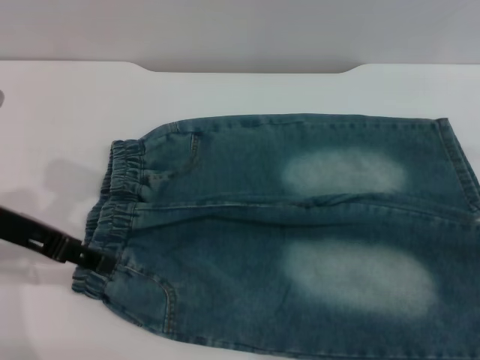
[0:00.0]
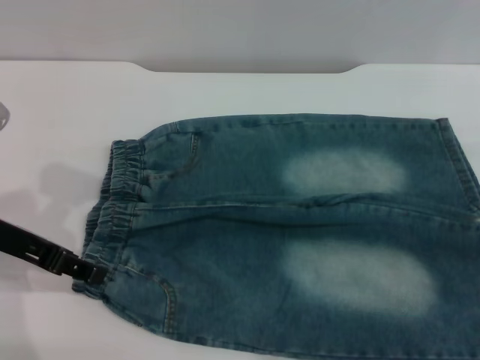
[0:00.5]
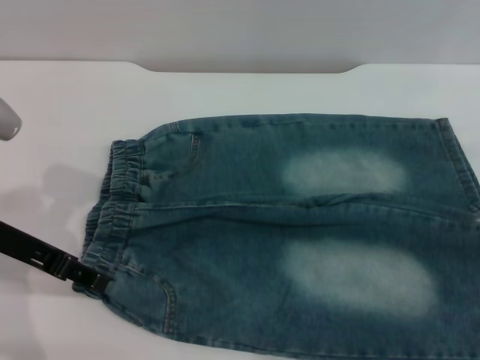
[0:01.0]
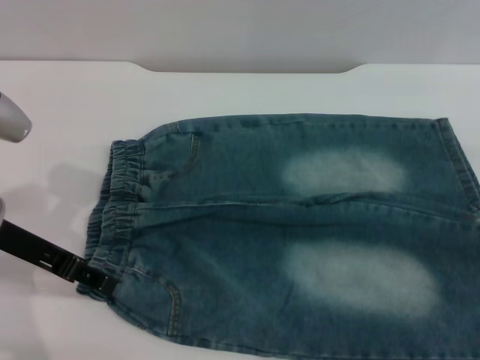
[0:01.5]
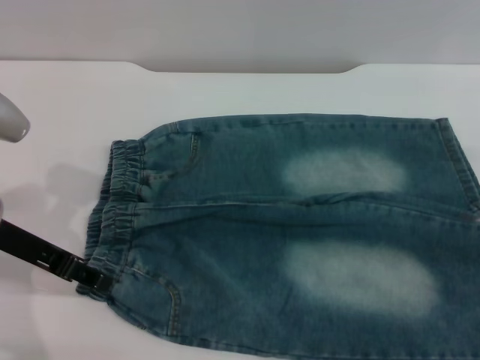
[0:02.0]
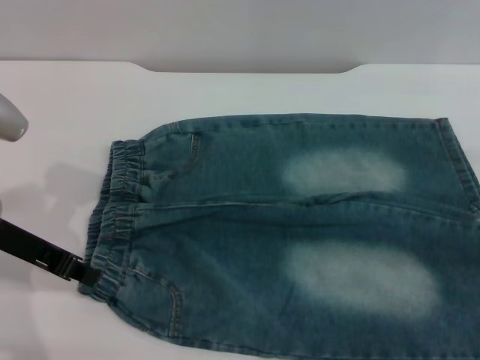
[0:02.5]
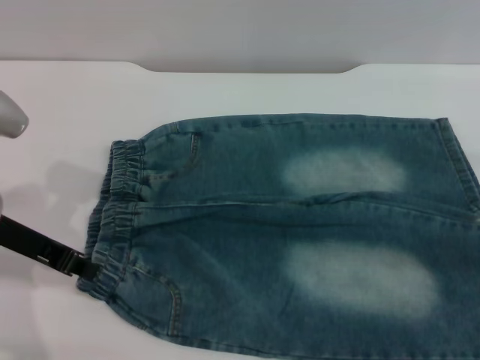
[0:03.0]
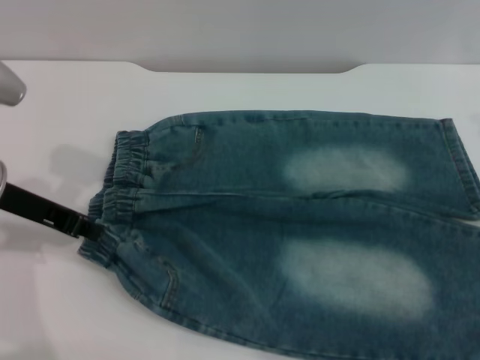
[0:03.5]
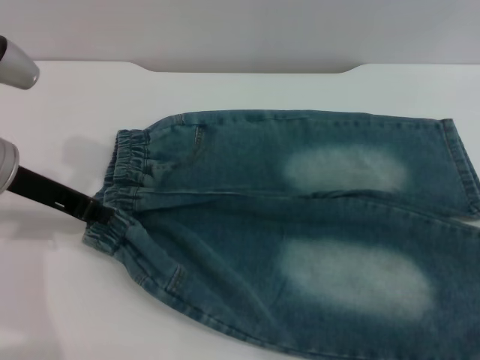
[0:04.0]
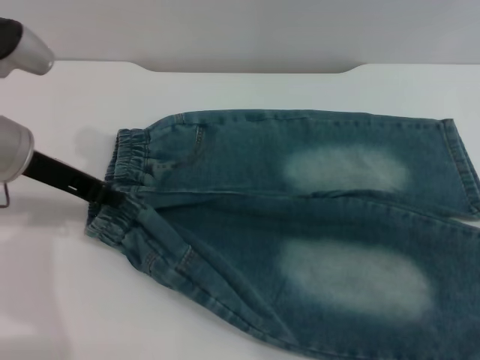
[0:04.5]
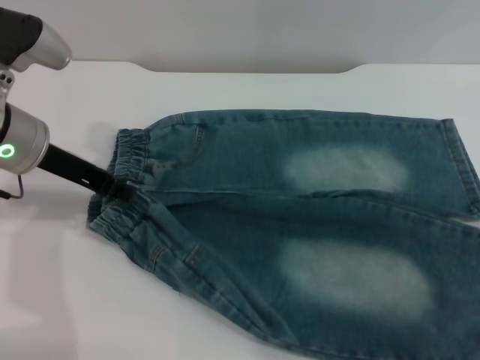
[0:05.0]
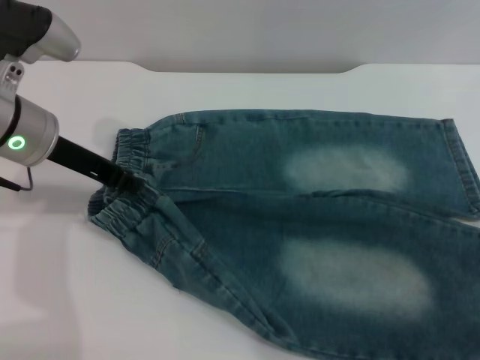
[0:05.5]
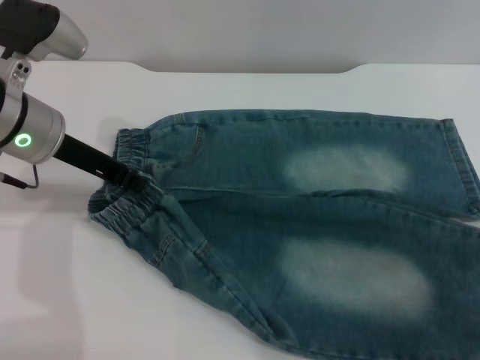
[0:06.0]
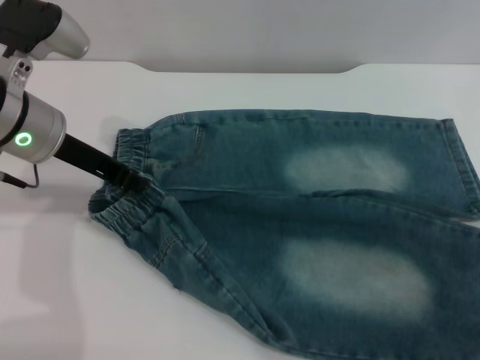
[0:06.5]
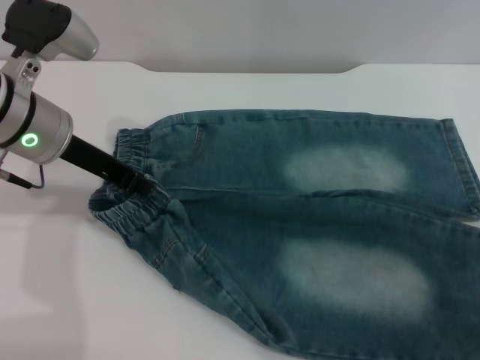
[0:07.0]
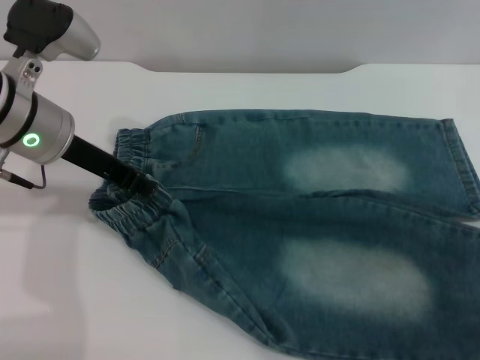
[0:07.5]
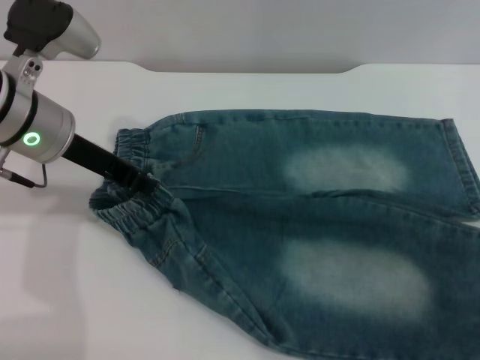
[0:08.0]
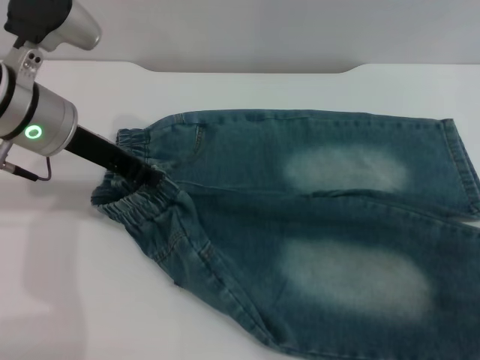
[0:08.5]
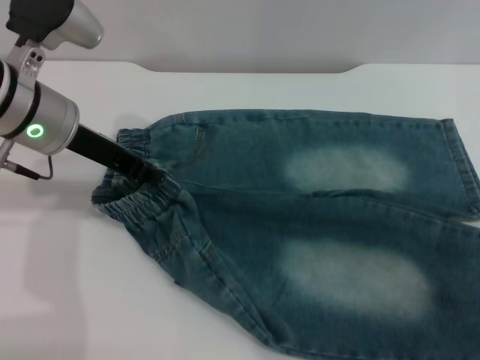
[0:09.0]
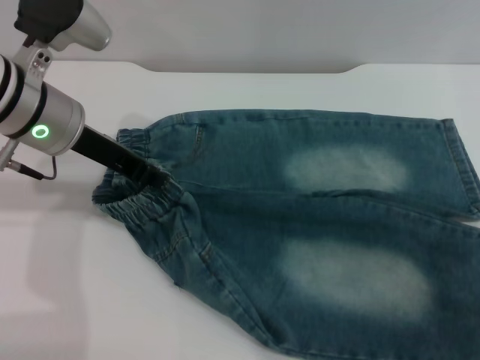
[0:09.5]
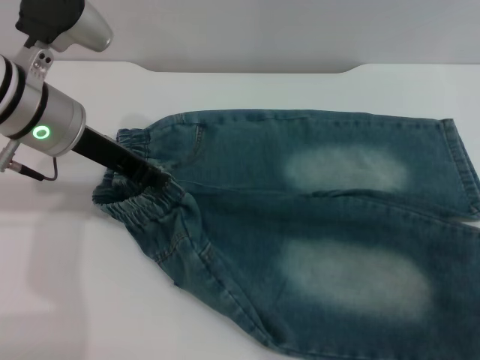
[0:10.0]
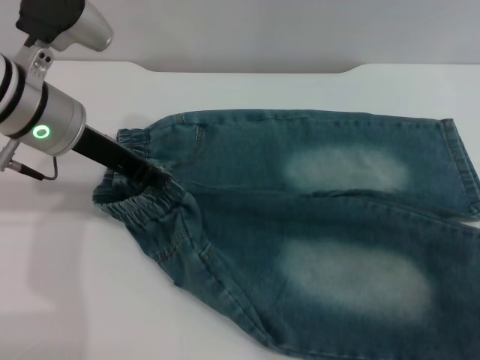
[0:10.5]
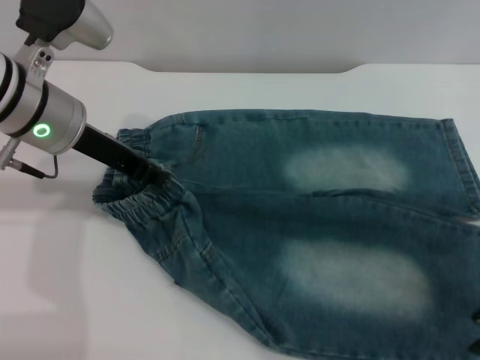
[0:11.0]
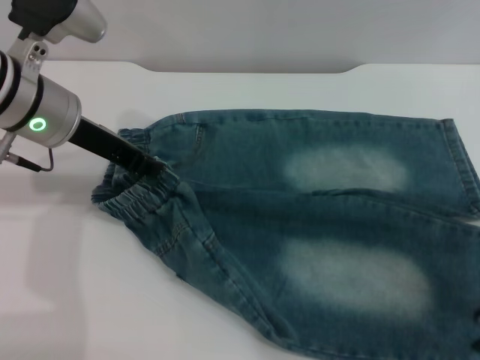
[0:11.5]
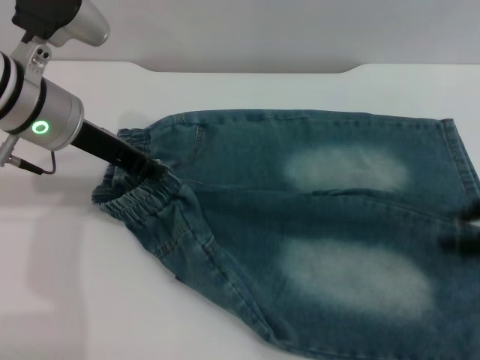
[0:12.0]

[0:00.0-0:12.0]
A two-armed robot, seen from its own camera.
0:00.0 to 0:02.0: There are only small adjustments of the grippers.
0:02.0 to 0:04.0: The right gripper heads upward, covering roughly 20 cm. Meanwhile the left gripper closes.
0:04.0 to 0:06.0: The left gripper moves approximately 5 cm, while the right gripper goes roughly 10 cm downward and to the left.
0:06.0 to 0:08.0: The grippers stay close to where they were, moving slightly.
0:08.0 to 0:10.0: Both grippers stay about where they are.
0:10.0 to 0:12.0: The right gripper moves to the right, approximately 5 cm.

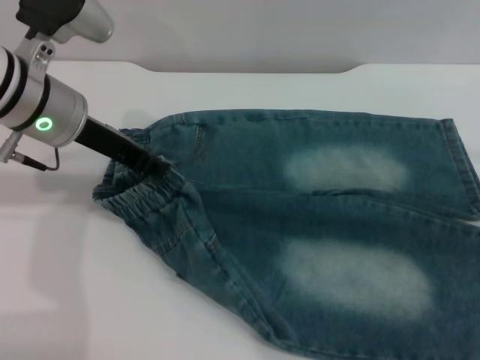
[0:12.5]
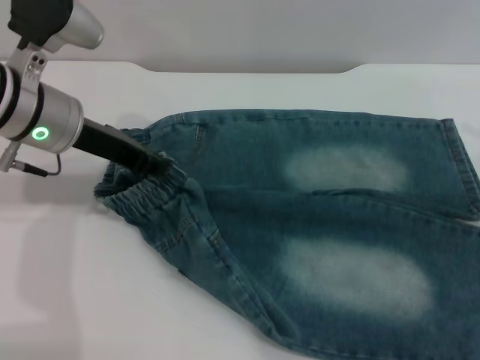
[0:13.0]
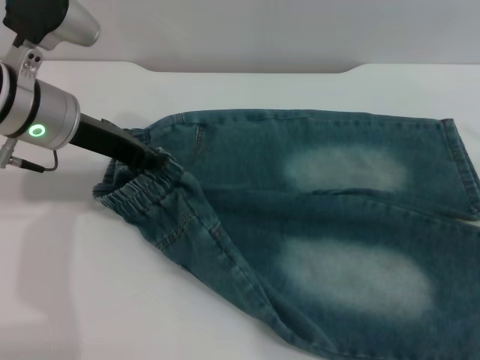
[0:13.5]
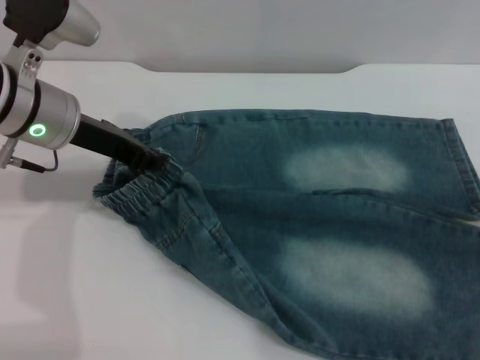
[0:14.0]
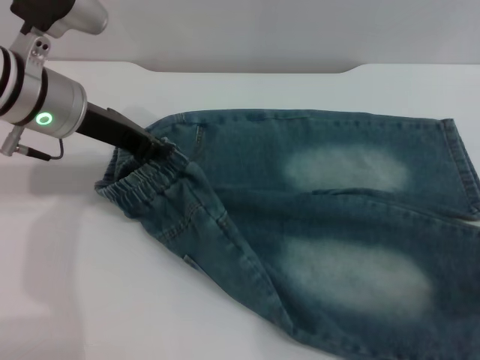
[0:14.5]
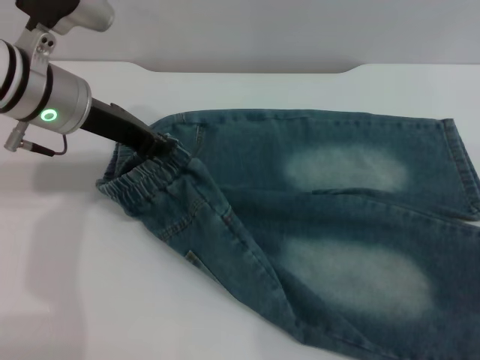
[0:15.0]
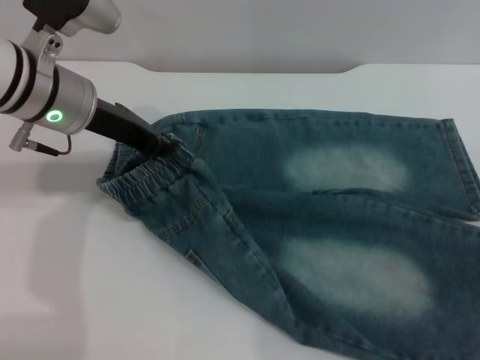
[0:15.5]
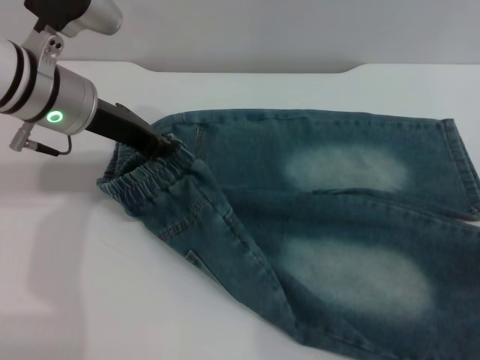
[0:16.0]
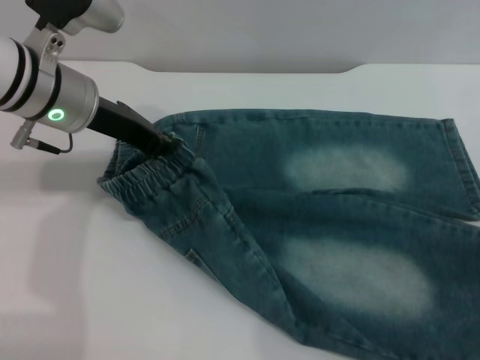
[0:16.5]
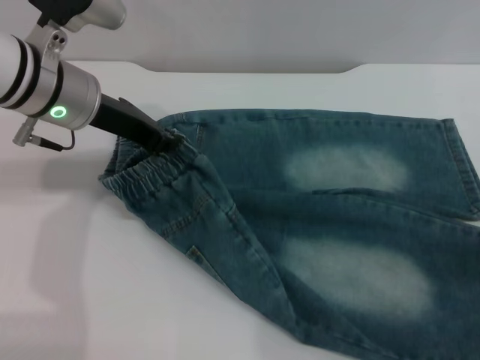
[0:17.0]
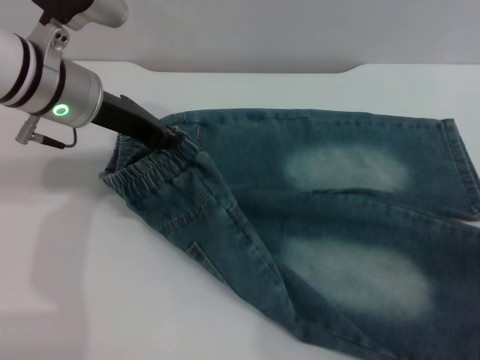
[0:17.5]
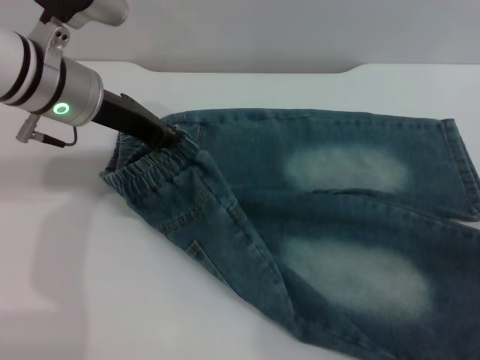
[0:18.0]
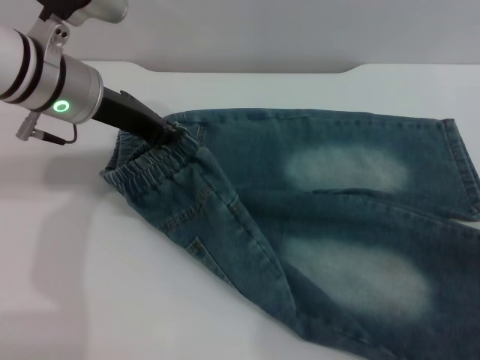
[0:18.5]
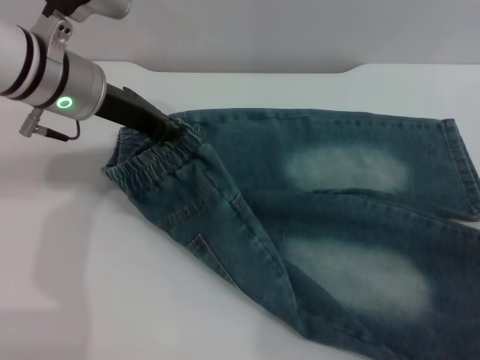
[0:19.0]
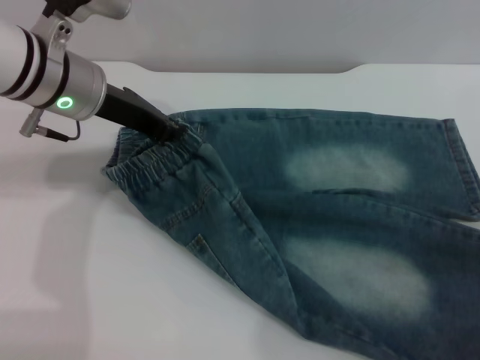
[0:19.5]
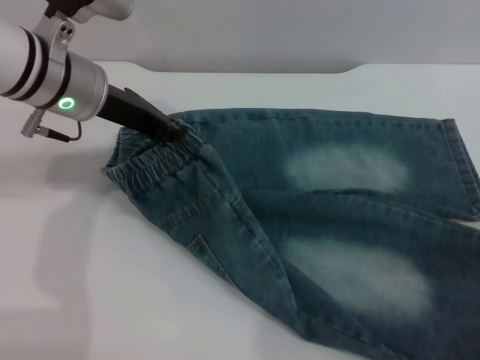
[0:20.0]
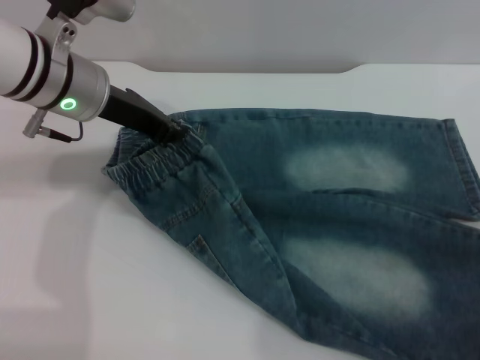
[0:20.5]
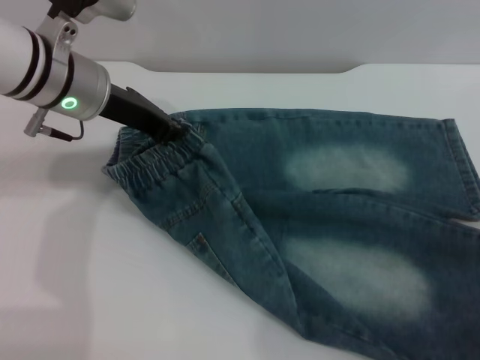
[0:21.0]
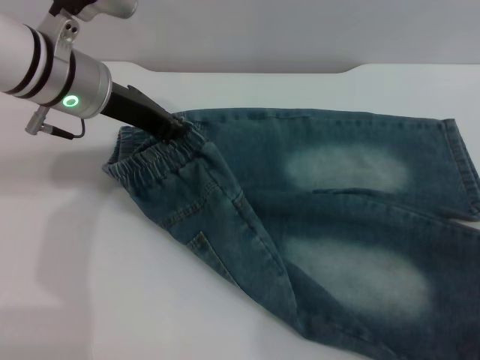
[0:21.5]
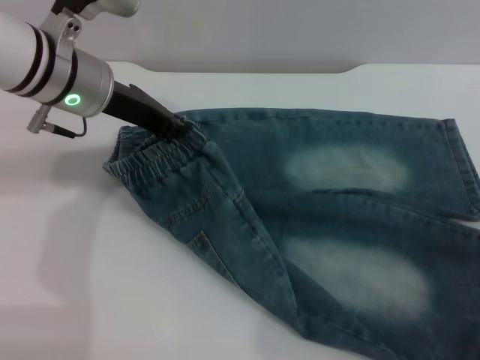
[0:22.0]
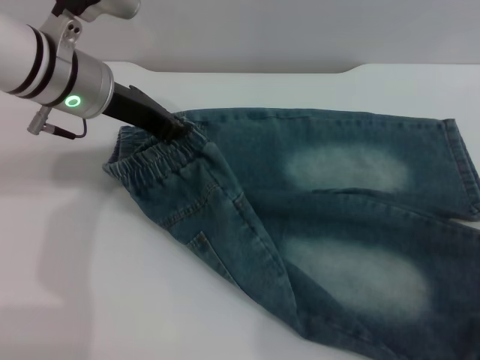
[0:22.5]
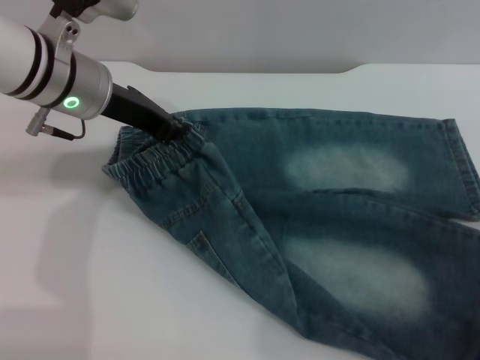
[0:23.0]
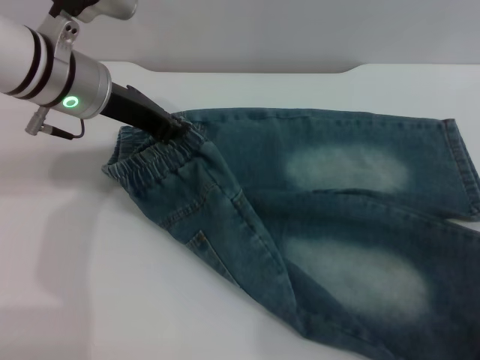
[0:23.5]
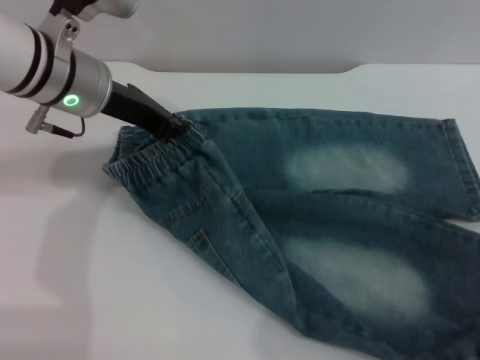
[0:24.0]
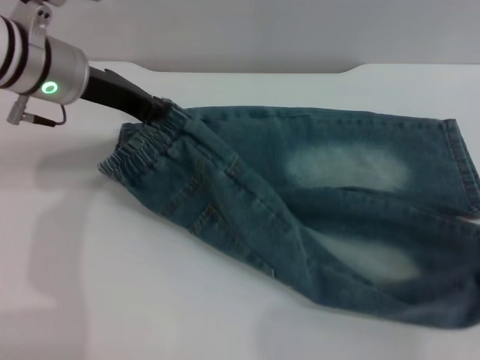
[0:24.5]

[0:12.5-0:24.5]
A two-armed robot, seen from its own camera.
0:12.5 to 0:14.5: The right gripper is displaced backward by about 5 cm.
0:16.5 to 0:22.5: The grippers make only small movements.
0:22.5 to 0:24.5: The right gripper closes its fingers.

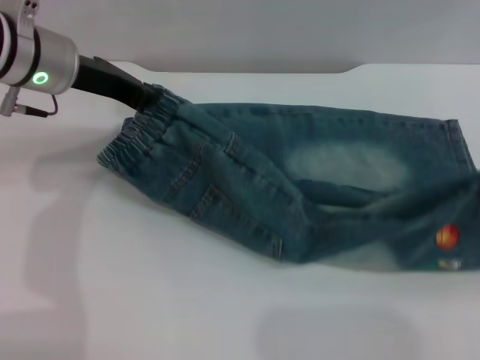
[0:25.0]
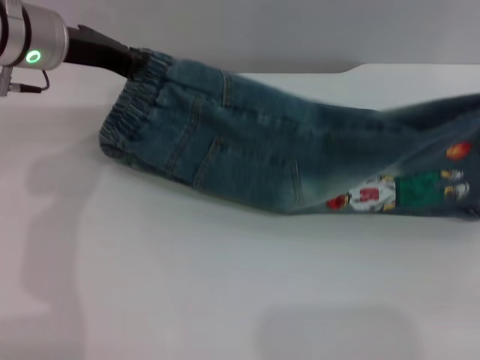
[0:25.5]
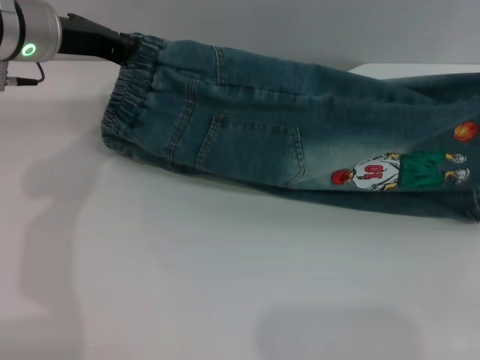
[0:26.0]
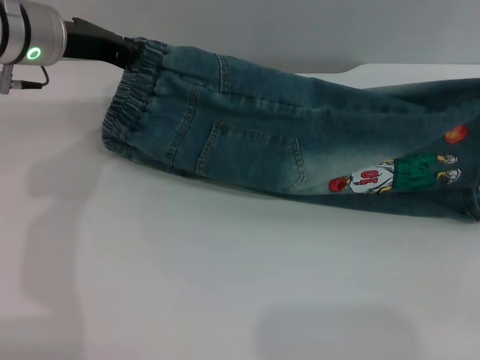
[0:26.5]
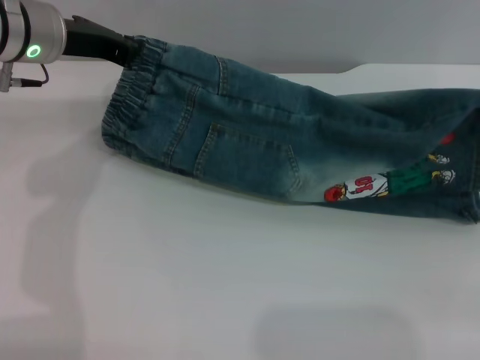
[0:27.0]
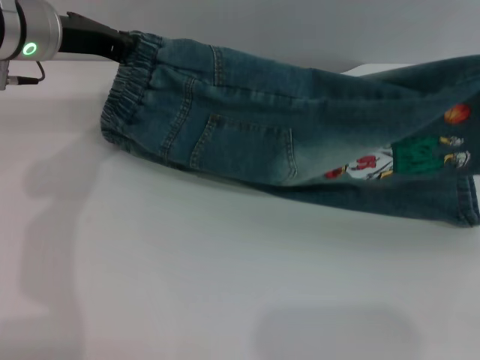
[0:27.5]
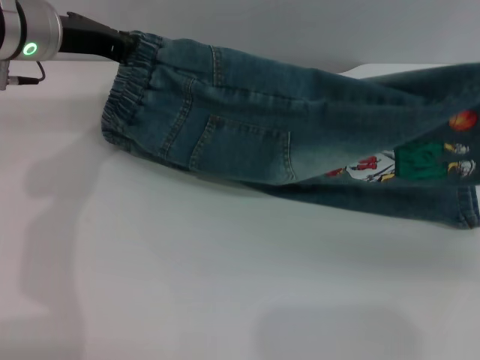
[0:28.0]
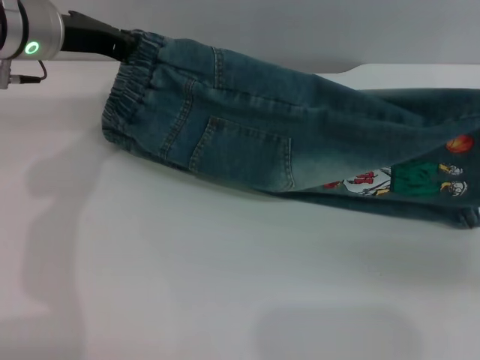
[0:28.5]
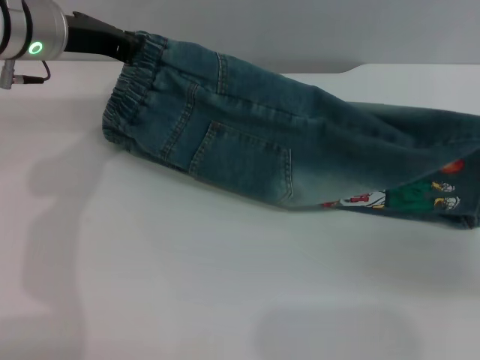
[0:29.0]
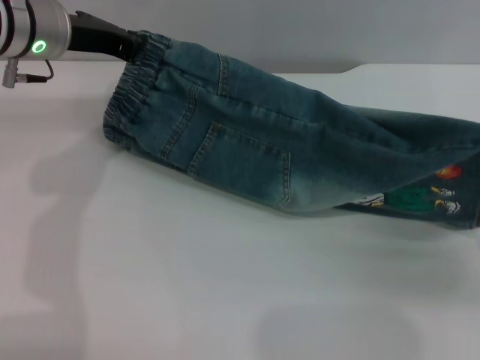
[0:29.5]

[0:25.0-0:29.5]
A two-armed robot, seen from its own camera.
0:27.0 to 0:29.5: The right gripper shifts some 5 cm backward.
